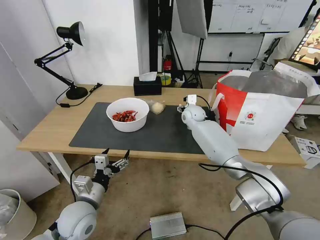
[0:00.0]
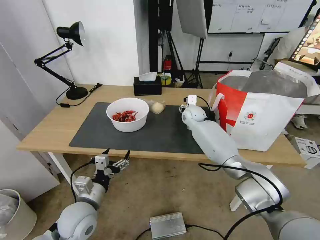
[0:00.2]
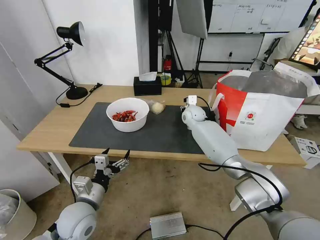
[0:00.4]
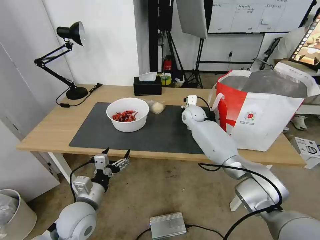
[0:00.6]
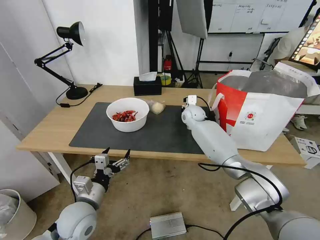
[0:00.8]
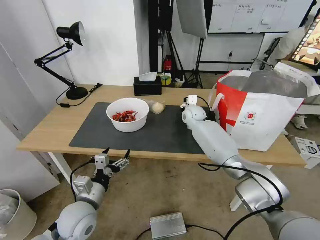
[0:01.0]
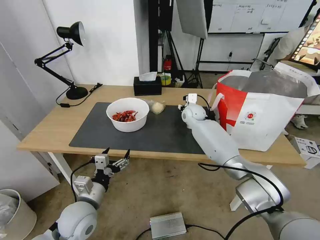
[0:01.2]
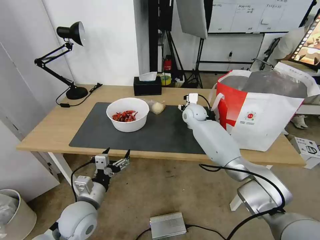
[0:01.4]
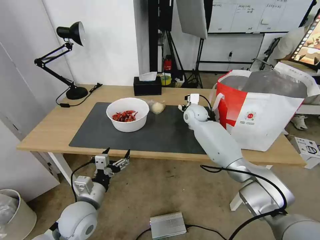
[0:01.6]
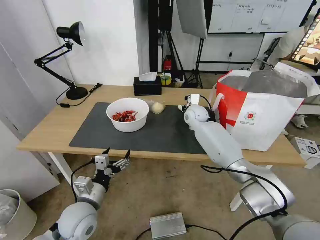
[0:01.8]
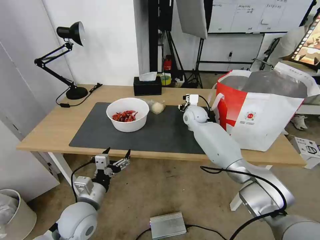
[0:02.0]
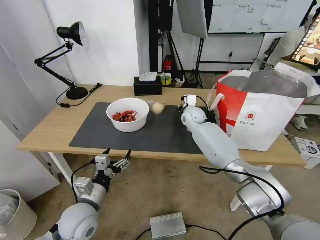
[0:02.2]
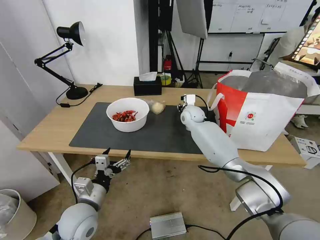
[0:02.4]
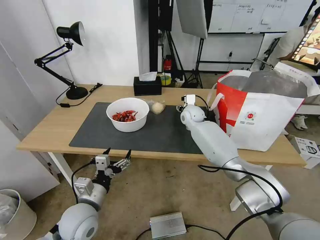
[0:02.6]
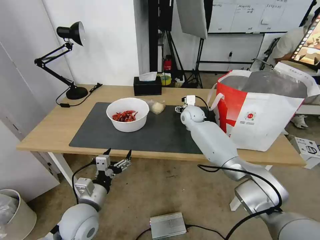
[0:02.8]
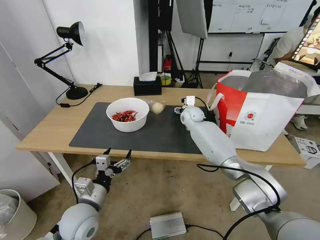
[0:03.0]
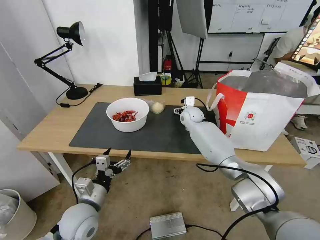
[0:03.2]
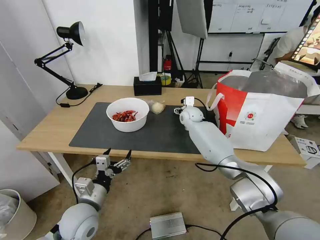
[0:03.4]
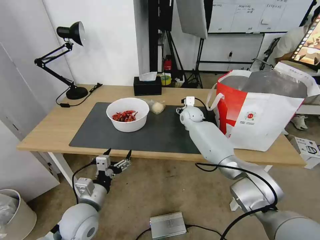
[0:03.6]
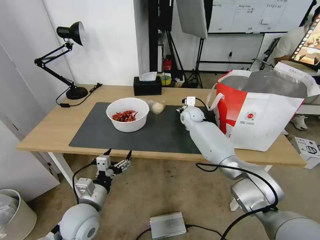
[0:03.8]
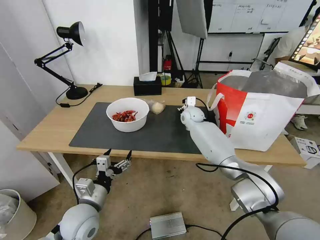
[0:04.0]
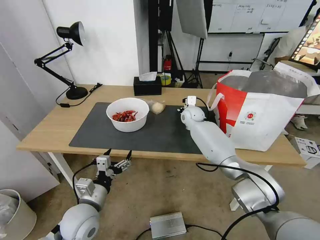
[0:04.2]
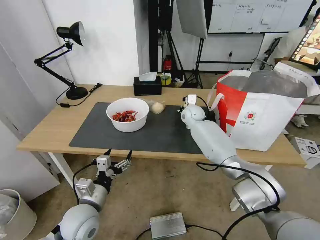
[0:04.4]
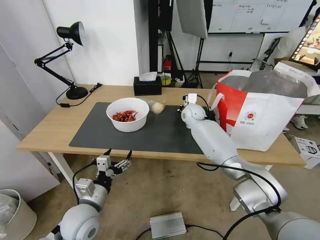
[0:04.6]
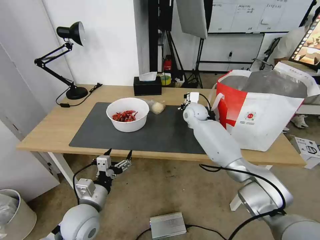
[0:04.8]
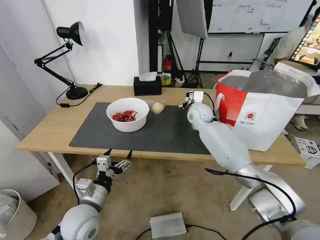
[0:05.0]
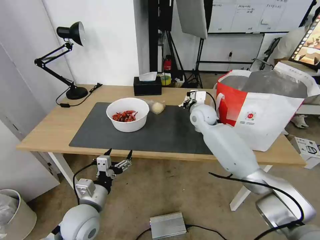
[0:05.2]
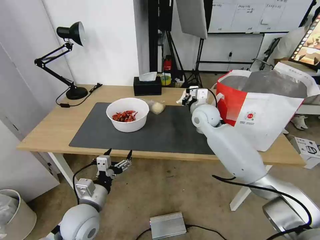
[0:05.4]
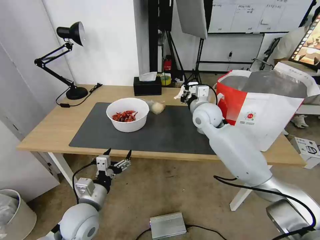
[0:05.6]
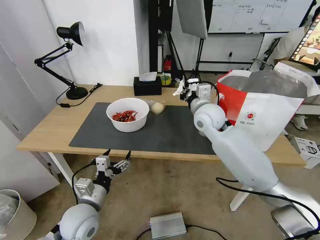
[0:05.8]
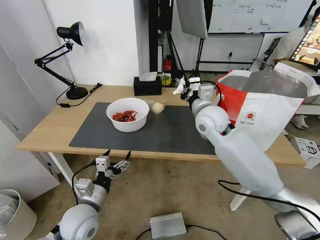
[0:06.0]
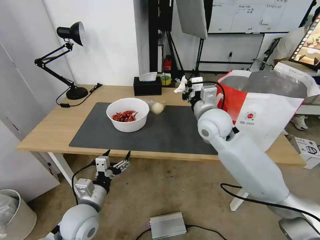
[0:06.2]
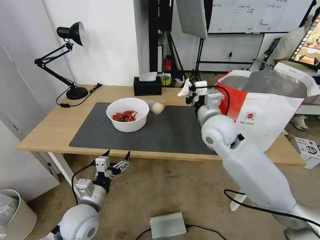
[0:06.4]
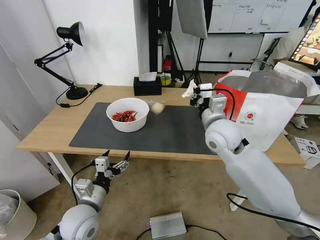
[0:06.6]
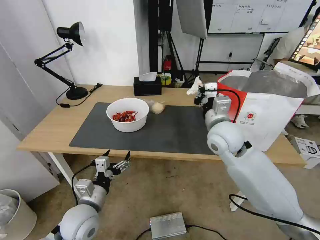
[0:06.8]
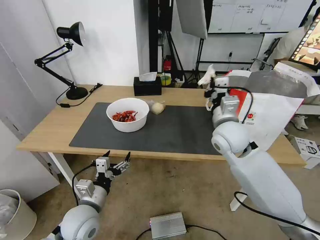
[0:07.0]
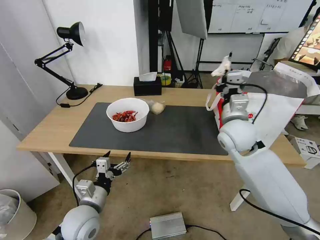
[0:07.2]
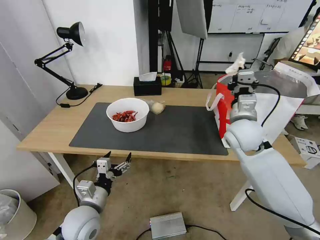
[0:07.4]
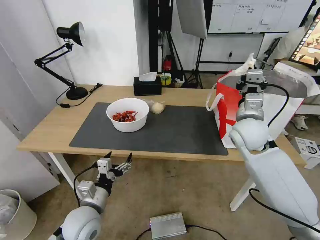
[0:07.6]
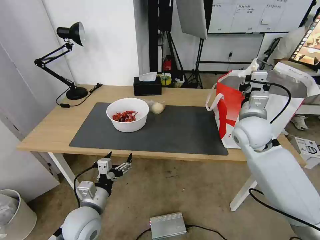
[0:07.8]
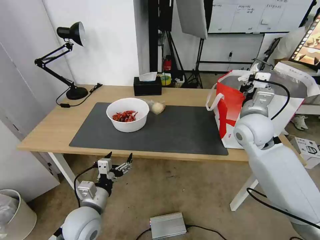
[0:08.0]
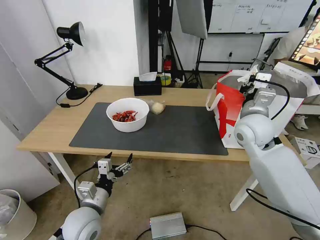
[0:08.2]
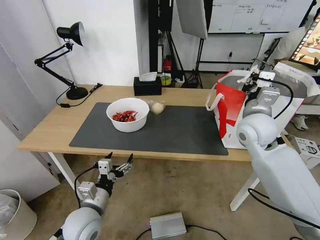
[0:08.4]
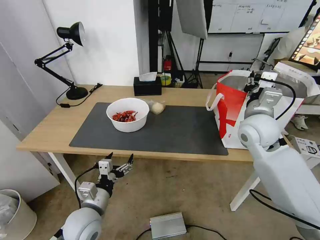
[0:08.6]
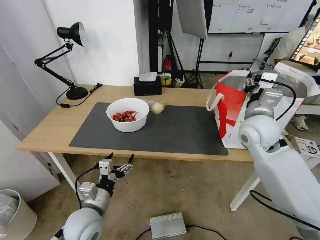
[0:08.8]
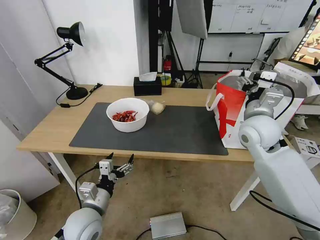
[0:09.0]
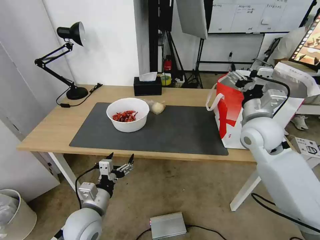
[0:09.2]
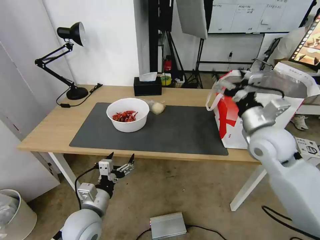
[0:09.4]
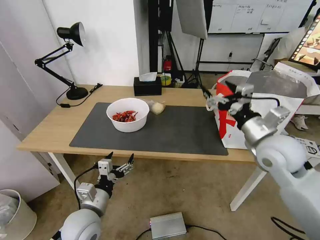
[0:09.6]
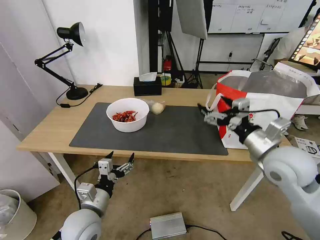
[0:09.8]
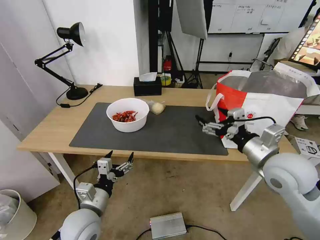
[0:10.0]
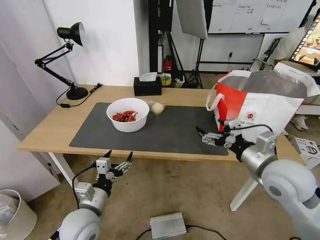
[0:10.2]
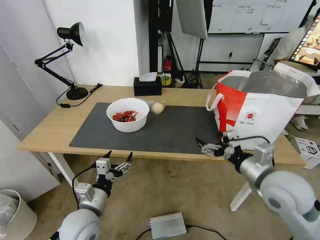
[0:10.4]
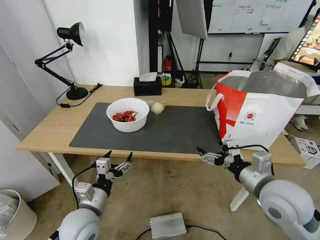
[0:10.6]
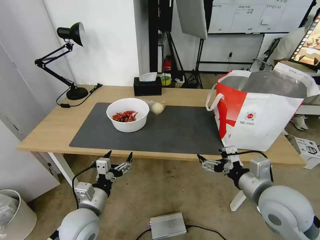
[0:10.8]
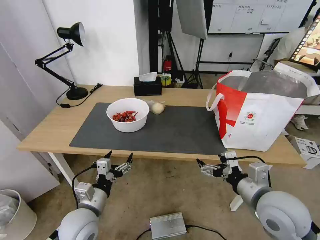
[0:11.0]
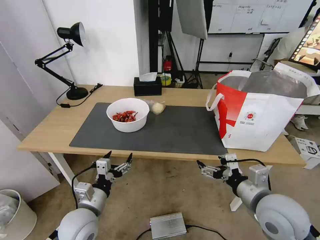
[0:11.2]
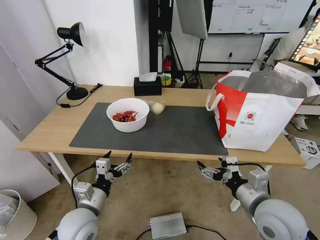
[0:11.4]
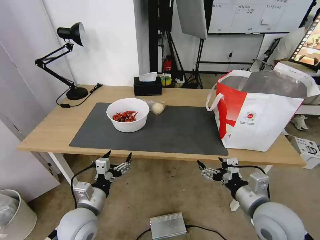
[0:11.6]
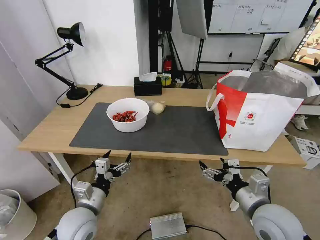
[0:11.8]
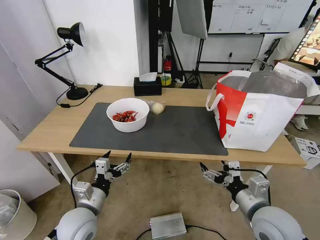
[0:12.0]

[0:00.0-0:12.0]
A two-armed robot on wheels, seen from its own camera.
Task of the whole recording: Pick up the trash from the table and place it into the takeout bag.
0:00.0 to 0:01.6: The right gripper closes its fingers.
0:01.6 to 0:03.0: The right gripper opens.
0:03.0 to 0:04.4: The right gripper closes its fingers.
0:04.4 to 0:06.0: The right gripper travels backward and upward by about 20 cm.
0:06.0 to 0:07.6: The right gripper goes about 10 cm to the right.
0:07.6 to 0:09.0: The right gripper opens.
0:09.0 to 0:10.4: The right gripper goes approximately 15 cm backward.
0:10.4 to 0:12.0: The right gripper moves downward and backward, some 10 cm.

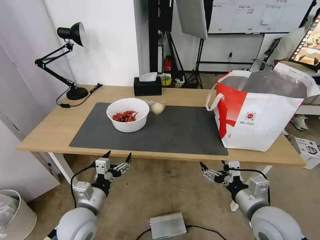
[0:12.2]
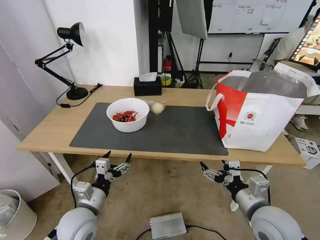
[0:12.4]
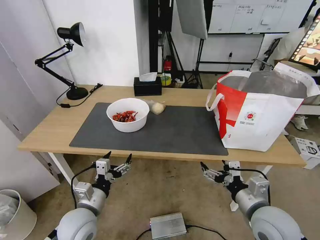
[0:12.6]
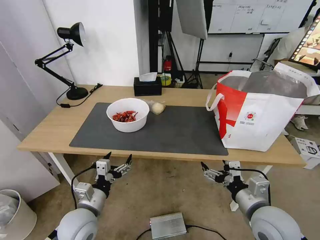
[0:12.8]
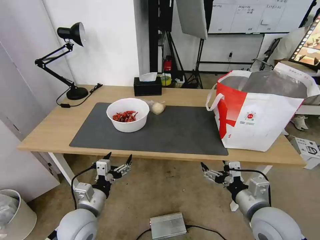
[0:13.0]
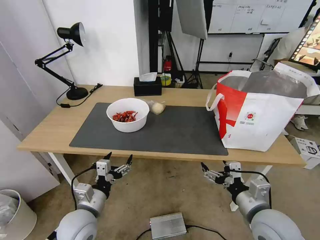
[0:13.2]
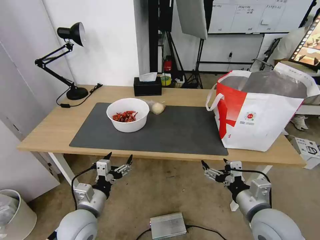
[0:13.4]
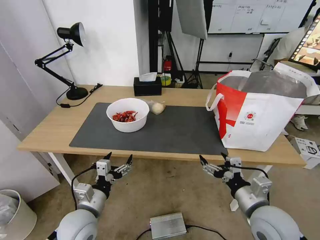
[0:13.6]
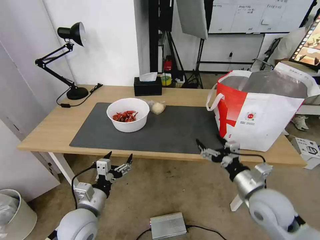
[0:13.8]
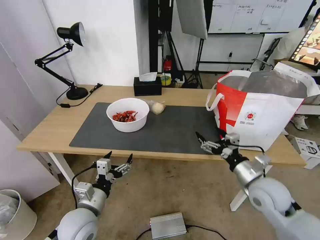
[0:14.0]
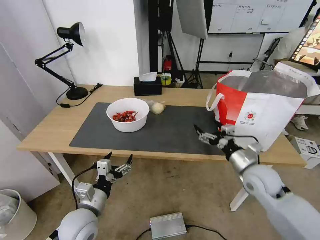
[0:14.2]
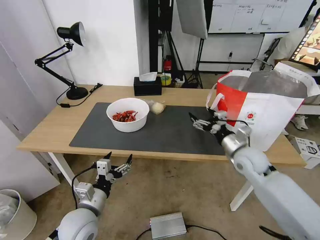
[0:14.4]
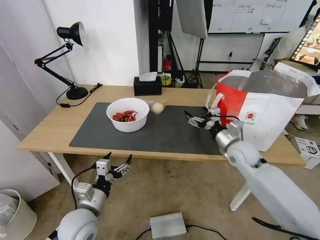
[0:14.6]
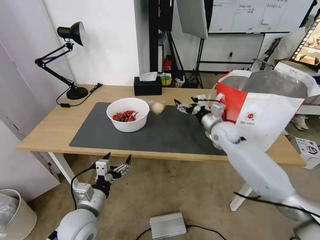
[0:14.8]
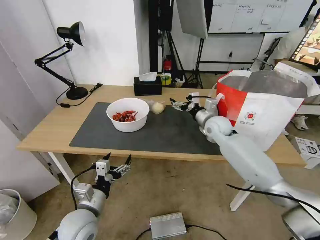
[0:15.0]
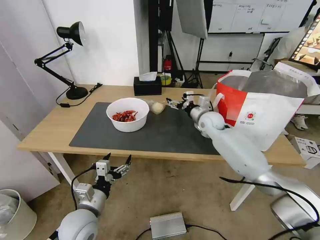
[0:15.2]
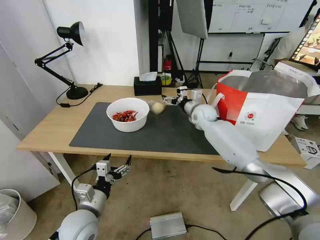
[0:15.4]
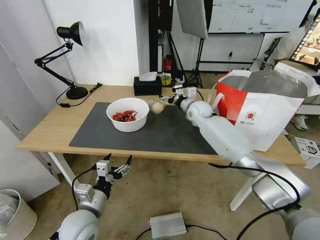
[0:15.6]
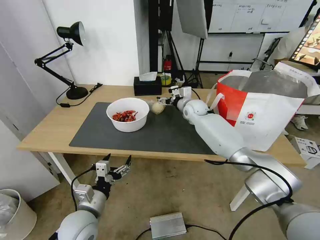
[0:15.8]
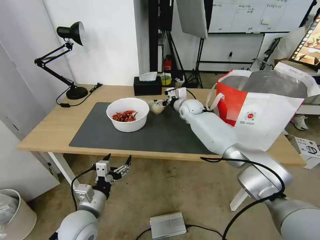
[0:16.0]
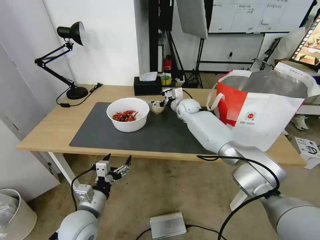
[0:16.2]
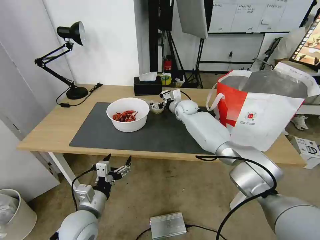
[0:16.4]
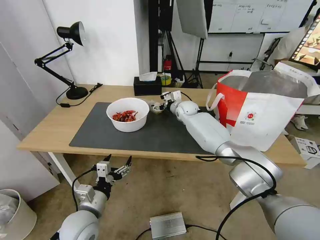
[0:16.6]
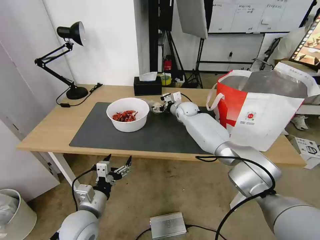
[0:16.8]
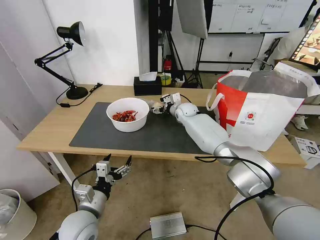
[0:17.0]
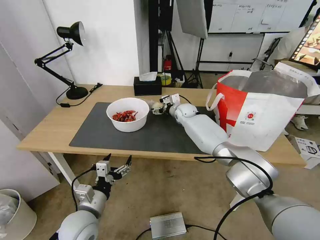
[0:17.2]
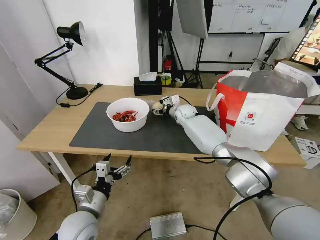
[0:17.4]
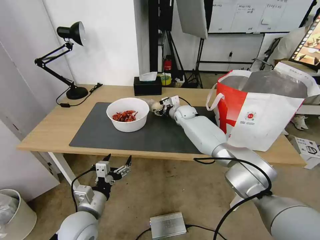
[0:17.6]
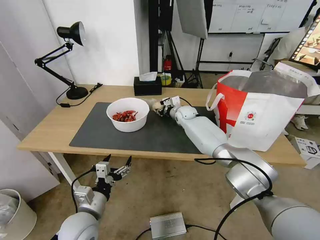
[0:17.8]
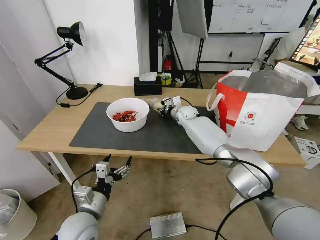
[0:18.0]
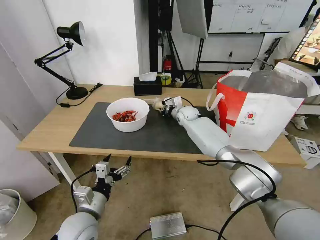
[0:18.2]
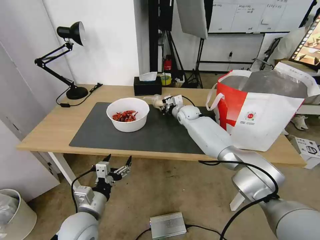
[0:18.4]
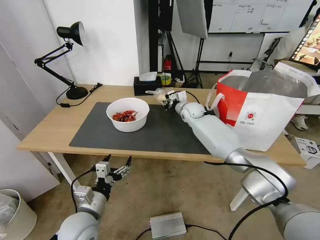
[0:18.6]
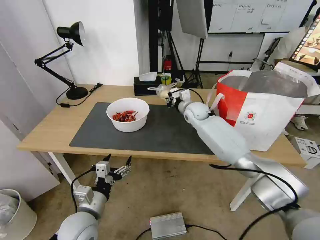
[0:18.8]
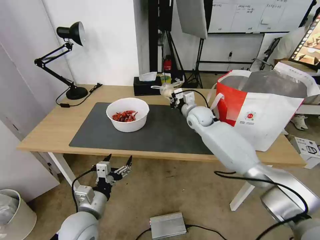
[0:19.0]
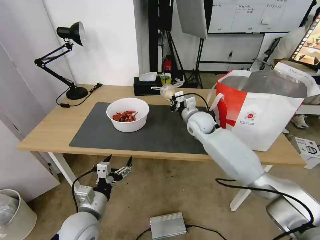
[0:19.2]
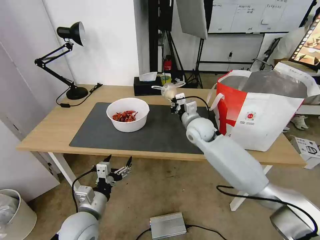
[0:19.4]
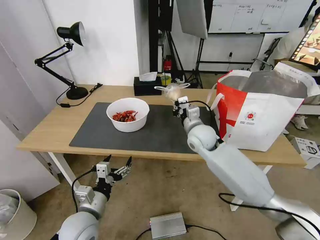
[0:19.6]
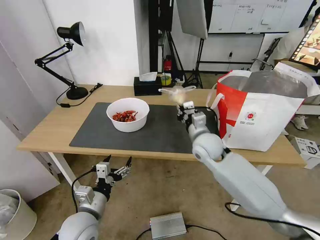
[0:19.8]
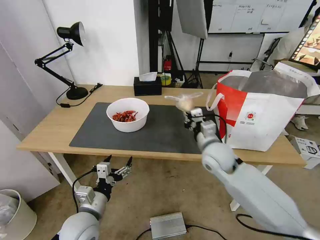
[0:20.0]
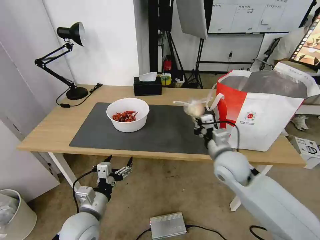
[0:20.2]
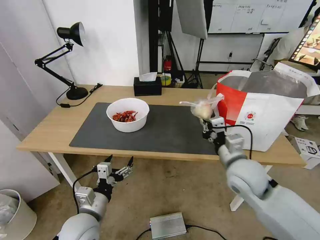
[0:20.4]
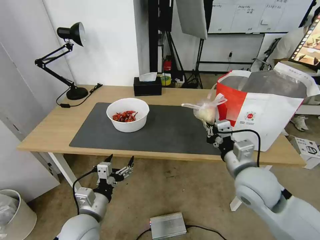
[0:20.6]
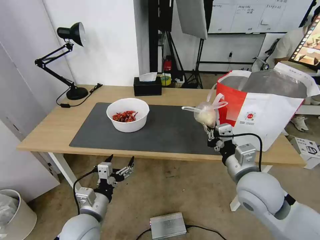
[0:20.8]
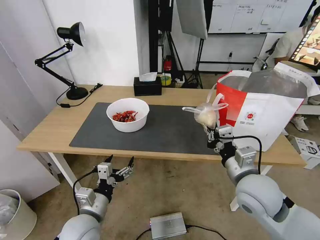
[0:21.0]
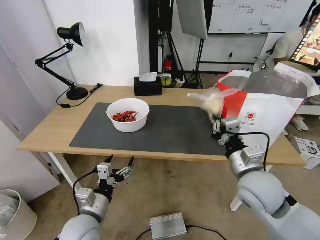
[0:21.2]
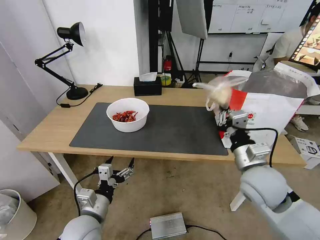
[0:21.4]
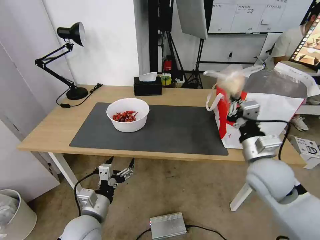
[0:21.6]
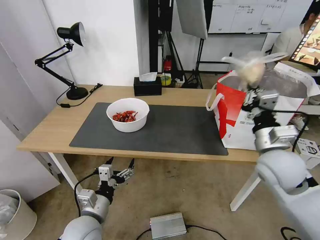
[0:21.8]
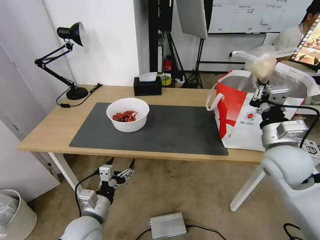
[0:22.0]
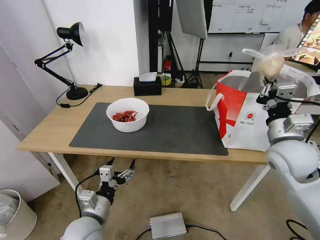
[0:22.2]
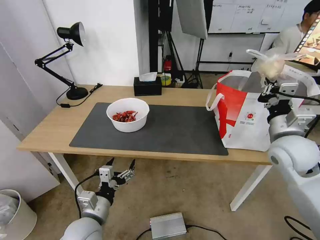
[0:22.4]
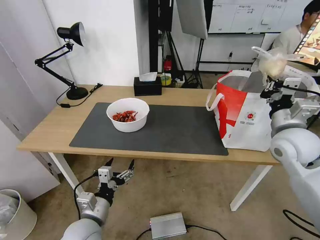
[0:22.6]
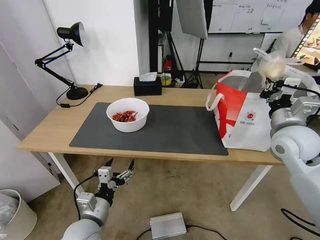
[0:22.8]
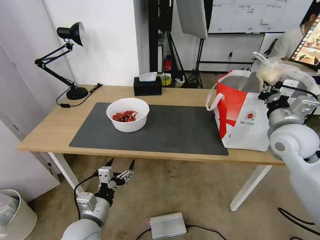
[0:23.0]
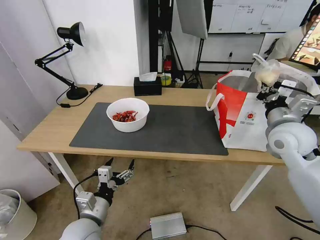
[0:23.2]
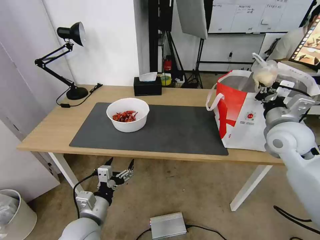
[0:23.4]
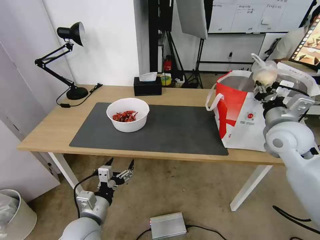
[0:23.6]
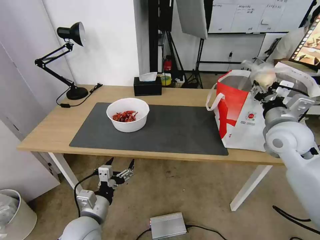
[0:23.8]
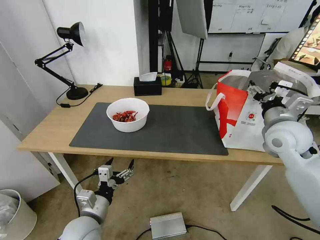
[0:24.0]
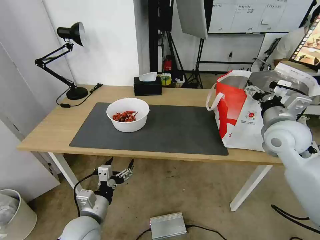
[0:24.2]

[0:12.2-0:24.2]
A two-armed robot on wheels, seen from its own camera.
Task of the whole recording: Pick up the trash from the table and place it into the takeout bag.
0:13.8 to 0:15.2: The right gripper heads forward, covering approximately 30 cm.
0:15.2 to 0:16.6: The right gripper travels forward and to the left by roughly 10 cm.
0:16.6 to 0:18.2: The right gripper closes up.
0:18.2 to 0:19.8: The right gripper heads backward, covering some 20 cm.
0:19.8 to 0:21.2: The right gripper heads backward and to the right, covering some 20 cm.
0:21.2 to 0:22.6: The right gripper is displaced to the right, forward and upward by roughly 15 cm.
0:22.6 to 0:24.2: The right gripper opens.
